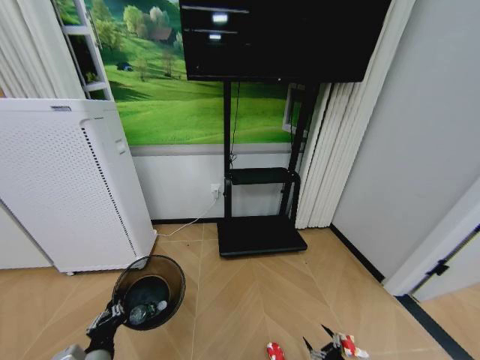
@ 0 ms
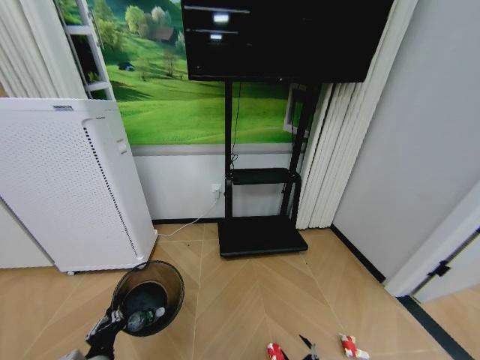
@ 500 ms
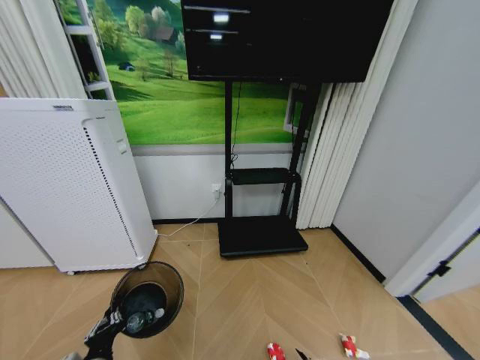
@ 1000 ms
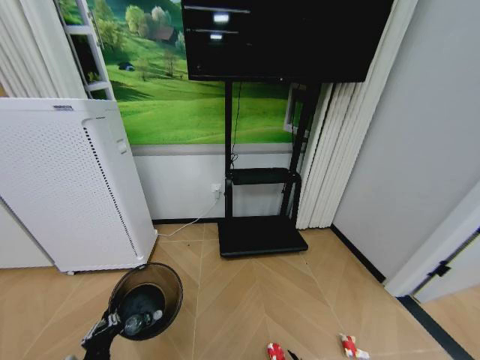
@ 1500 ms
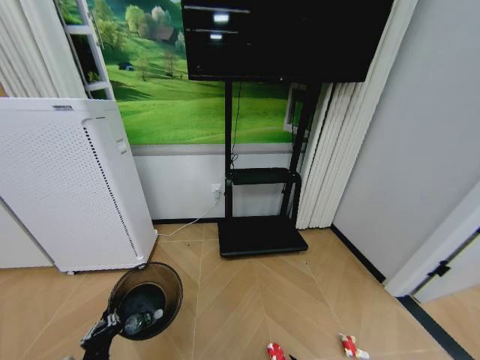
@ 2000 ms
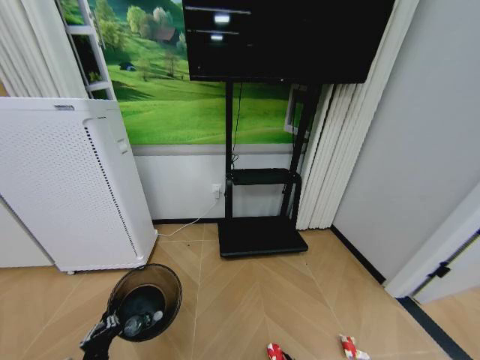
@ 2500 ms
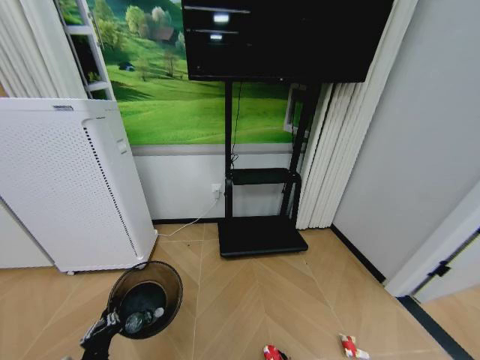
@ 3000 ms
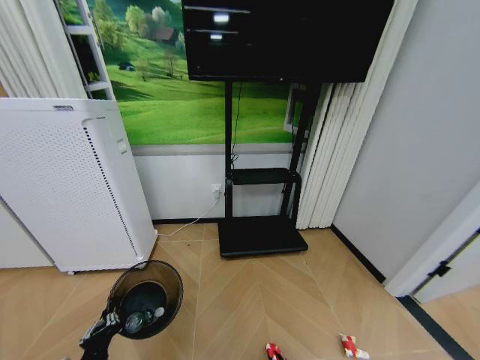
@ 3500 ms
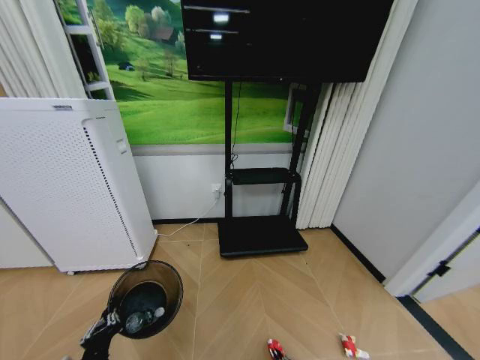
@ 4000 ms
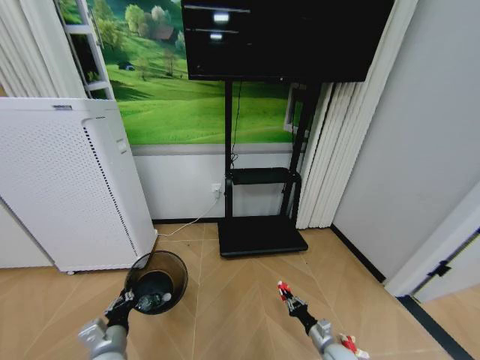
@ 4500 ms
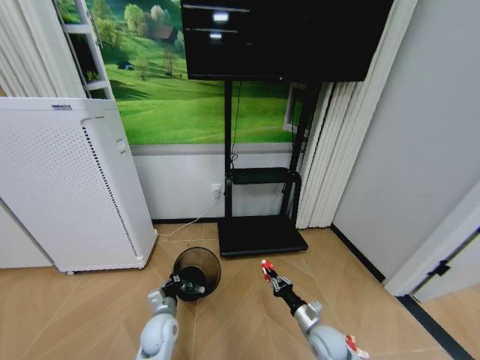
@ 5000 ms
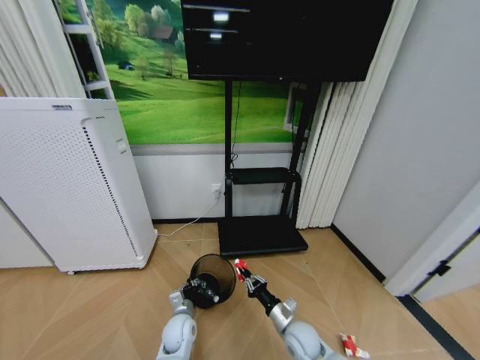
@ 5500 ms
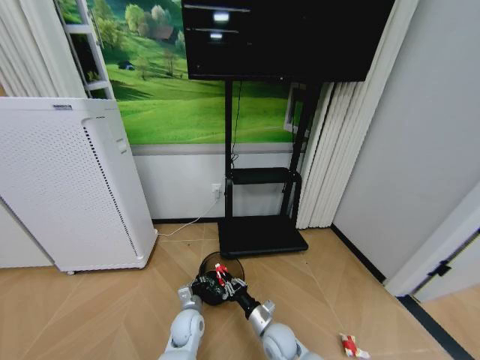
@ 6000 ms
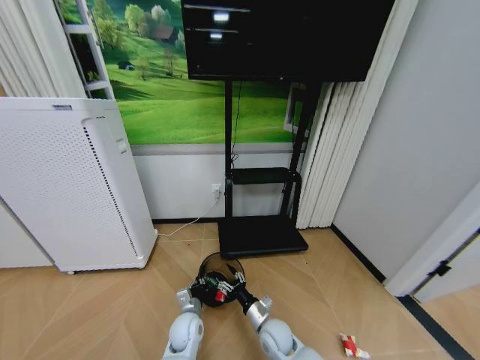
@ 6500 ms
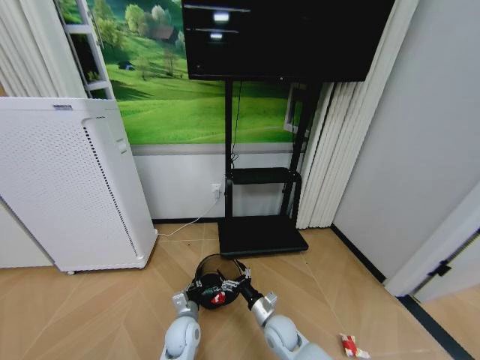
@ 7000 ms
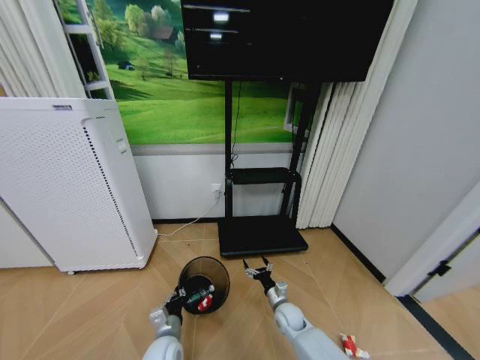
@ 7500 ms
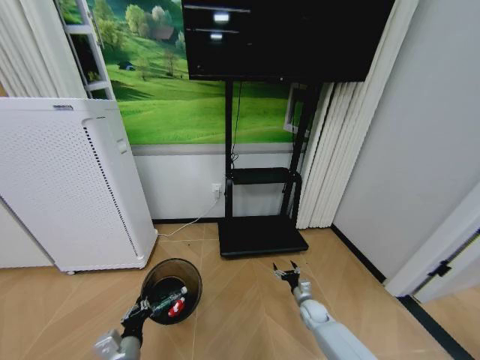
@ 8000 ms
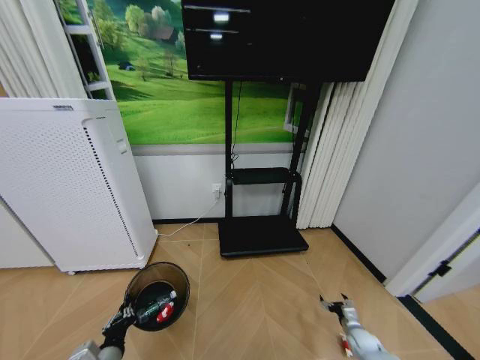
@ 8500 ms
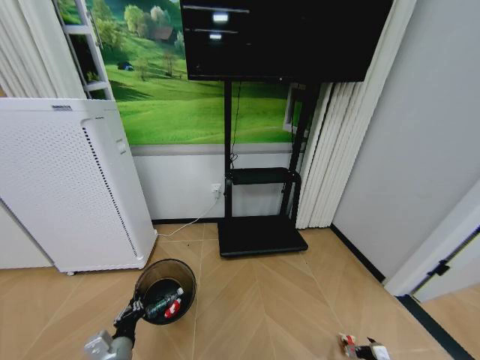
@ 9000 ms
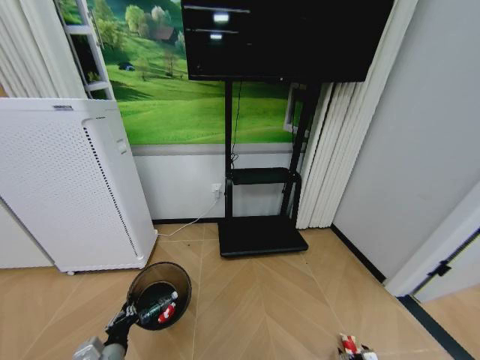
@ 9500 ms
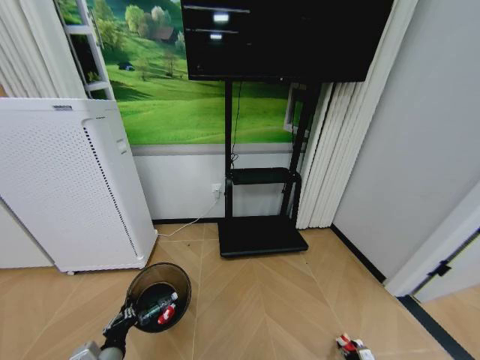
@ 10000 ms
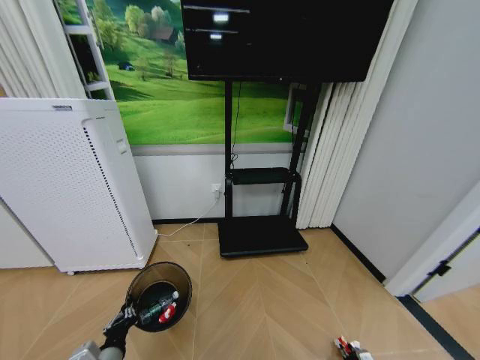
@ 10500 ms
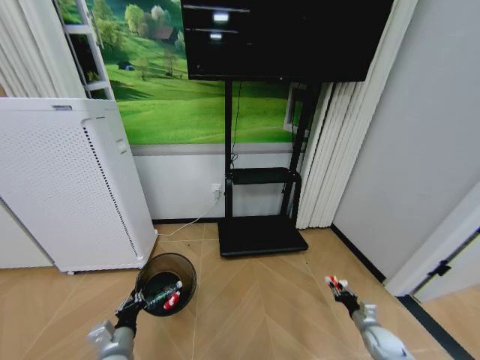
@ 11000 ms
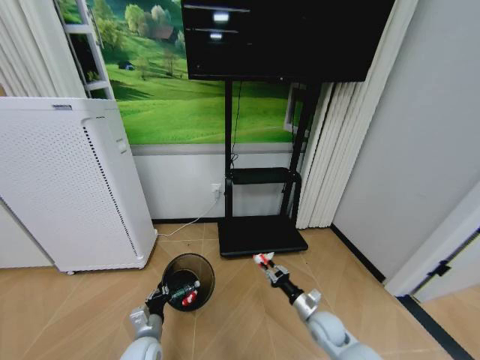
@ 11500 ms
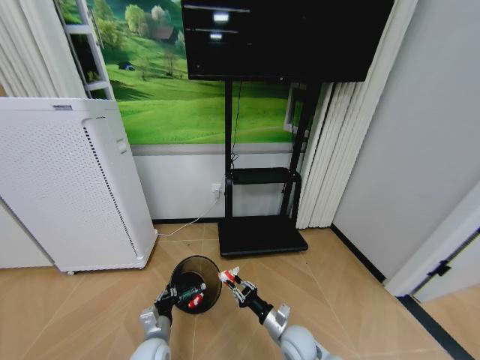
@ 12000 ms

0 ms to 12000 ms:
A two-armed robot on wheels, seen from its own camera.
Task of the whole recording: Pick up the trash bin and place the garbage on the floor into it.
0 ms to 2000 ms: The right gripper is displaced to the left and downward by roughly 15 cm.
4000 ms to 6000 ms: The left gripper travels forward, downward and to the right by about 30 cm. The right gripper travels upward, forward and to the left by approximately 30 cm.
6000 ms to 8000 ms: The right gripper travels to the right, forward and downward by approximately 20 cm, and opens, while the left gripper moves backward, to the left and upward, some 20 cm.
8000 ms to 10000 ms: The right gripper travels backward, to the right and downward by about 30 cm.
10000 ms to 12000 ms: The right gripper travels to the left and upward by some 35 cm, and closes its fingers, while the left gripper travels forward, to the right and downward by about 15 cm.

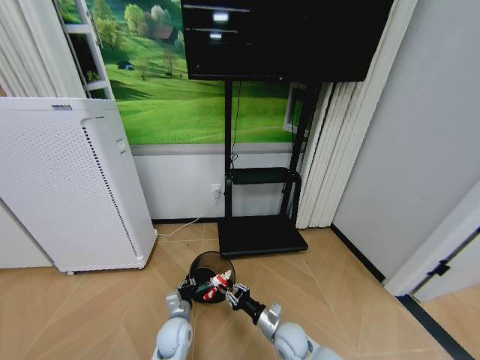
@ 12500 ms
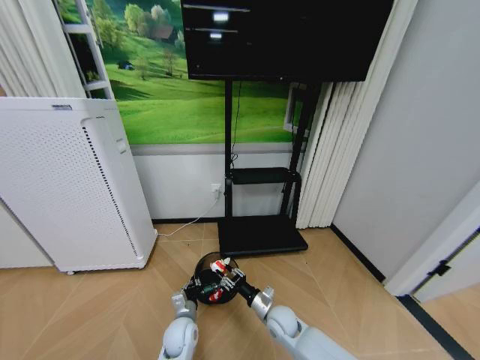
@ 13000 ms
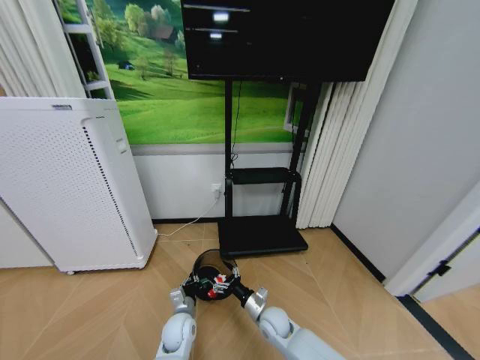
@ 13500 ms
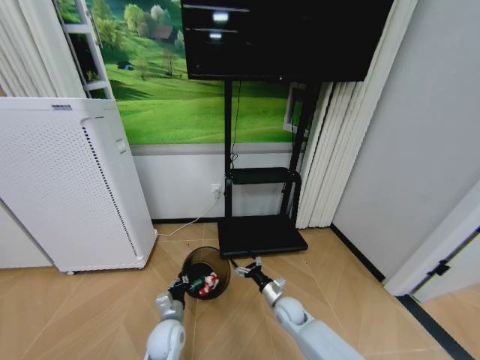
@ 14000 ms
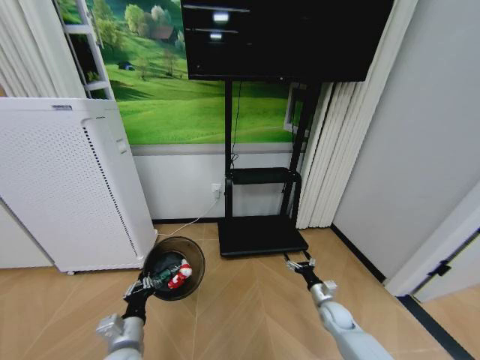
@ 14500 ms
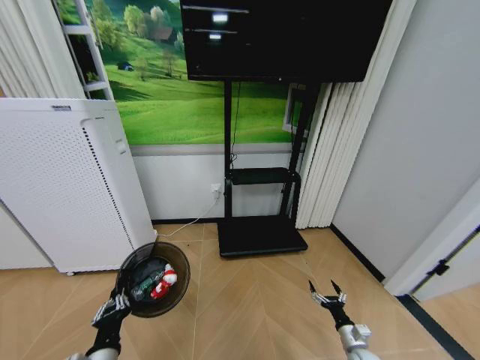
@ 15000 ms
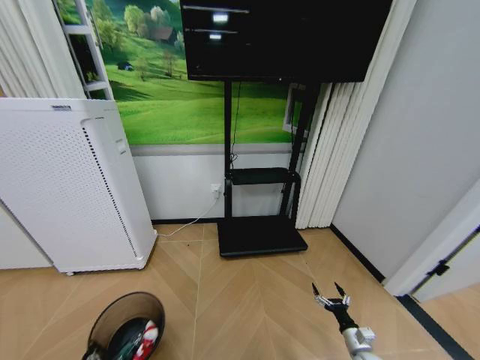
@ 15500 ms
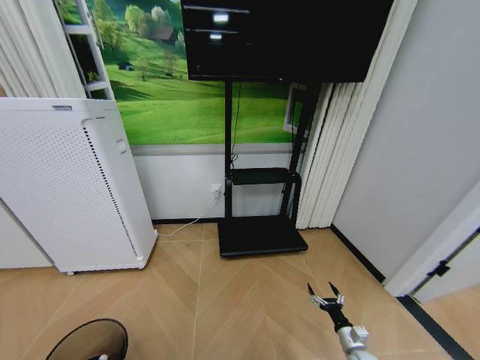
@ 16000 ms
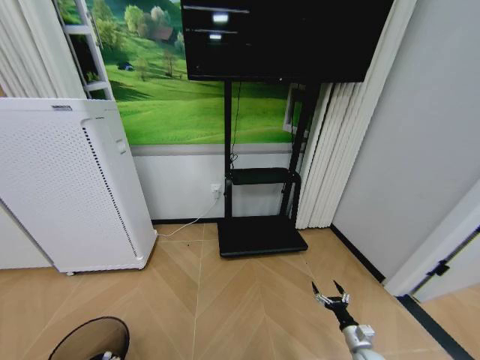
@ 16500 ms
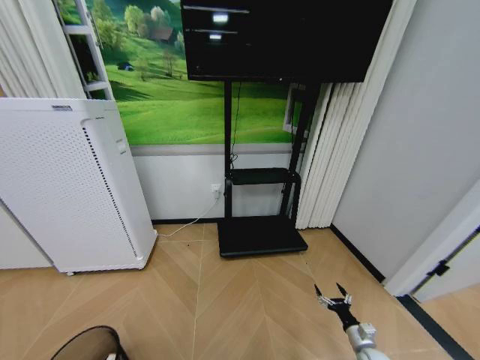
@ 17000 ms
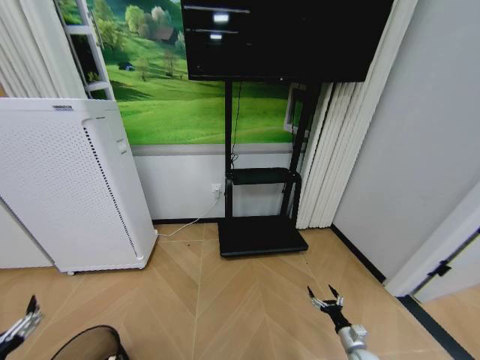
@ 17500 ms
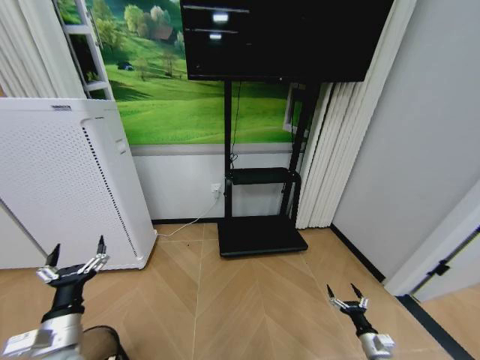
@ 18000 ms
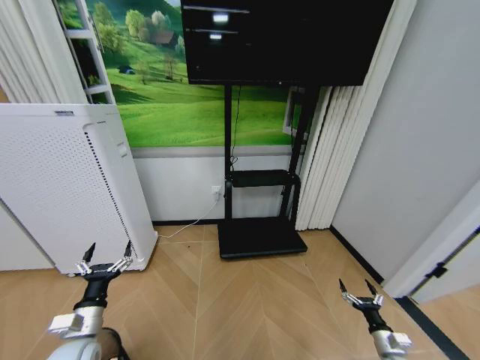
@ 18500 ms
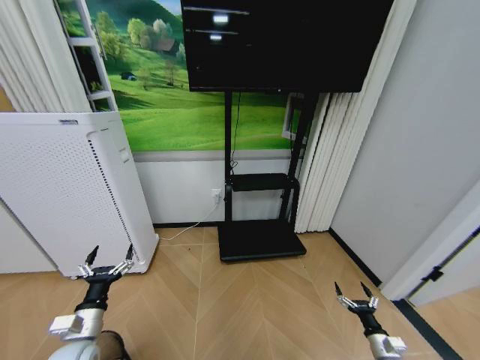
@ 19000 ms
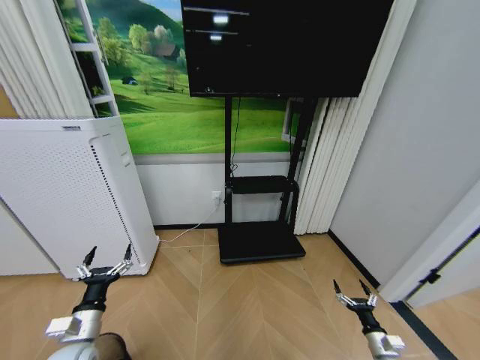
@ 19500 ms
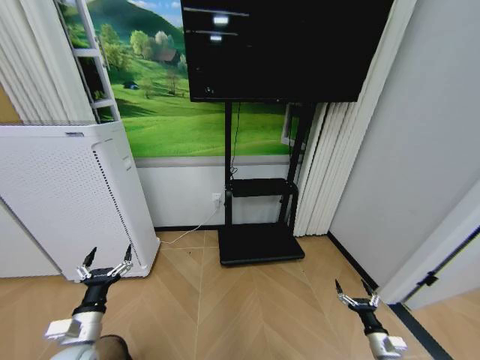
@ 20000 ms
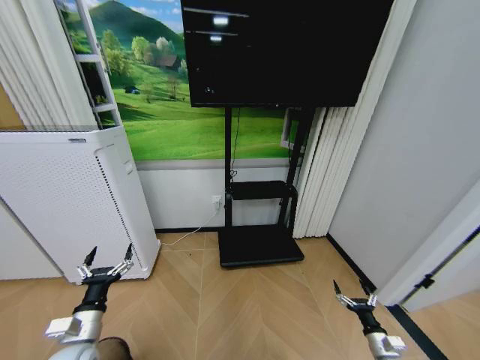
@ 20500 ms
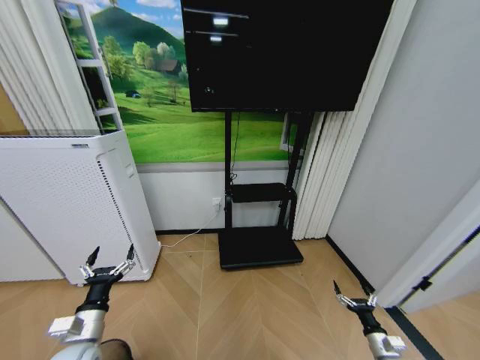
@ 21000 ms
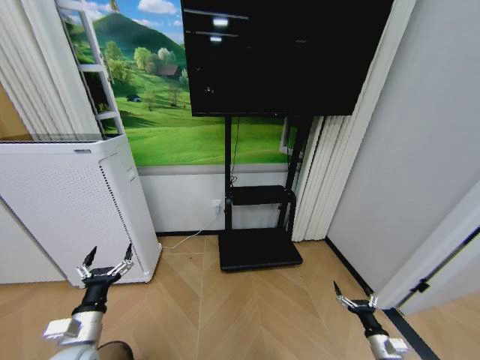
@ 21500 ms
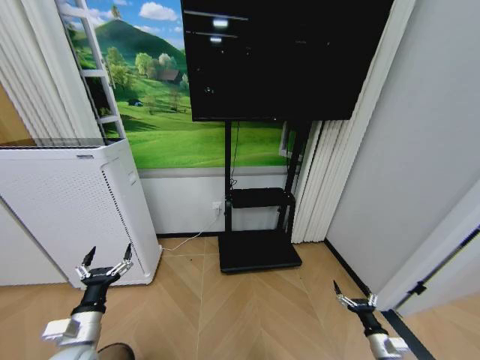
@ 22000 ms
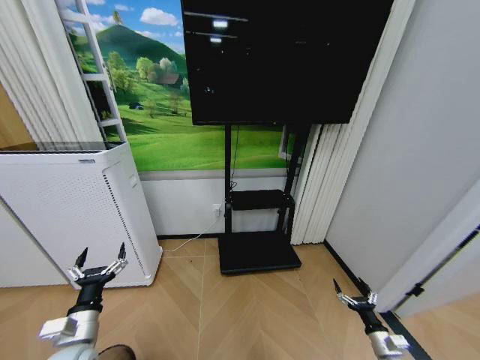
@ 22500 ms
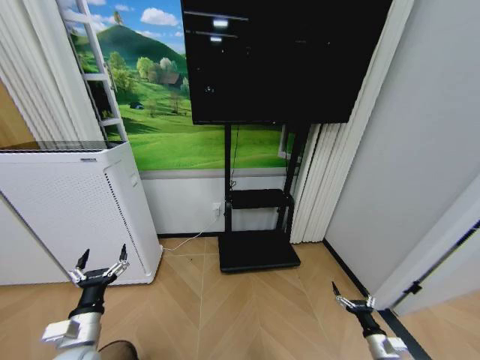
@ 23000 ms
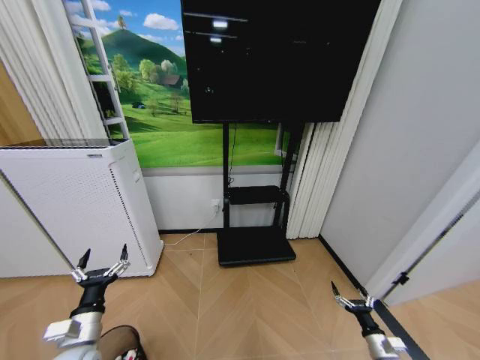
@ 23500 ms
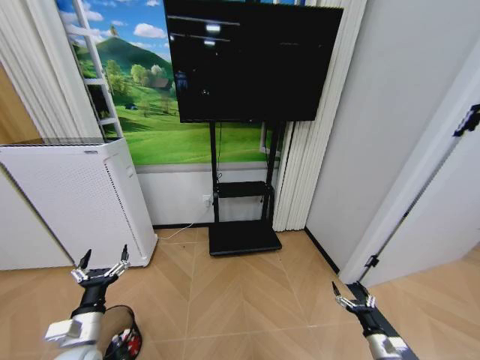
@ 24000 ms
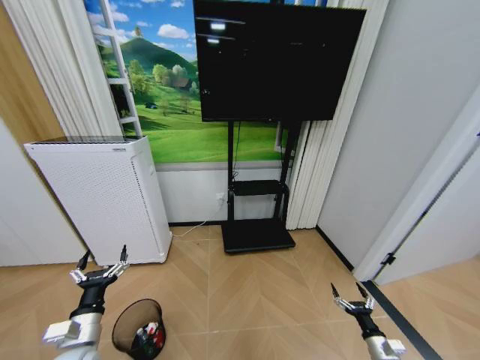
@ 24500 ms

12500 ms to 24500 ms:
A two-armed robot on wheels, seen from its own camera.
Task of the whole recording: Pick up the trash bin and place the garbage on the floor into it.
12500 ms to 14500 ms: The left gripper travels upward, backward and to the left by some 15 cm; the right gripper goes roughly 20 cm to the right, and opens its fingers.
14500 ms to 16500 ms: The right gripper is displaced backward, to the right and downward by some 15 cm. Meanwhile the left gripper travels to the left, backward and downward by approximately 20 cm.
16500 ms to 18500 ms: The left gripper goes roughly 20 cm forward and upward, and opens up; the right gripper moves to the right, some 5 cm.
20500 ms to 22500 ms: Both grippers stay about where they are.

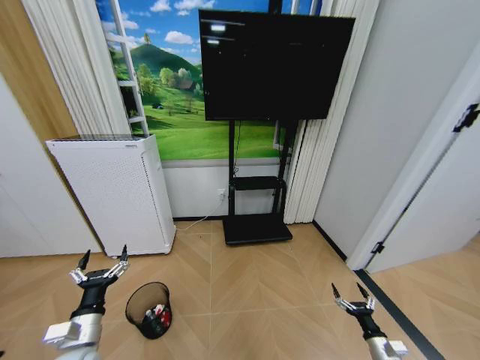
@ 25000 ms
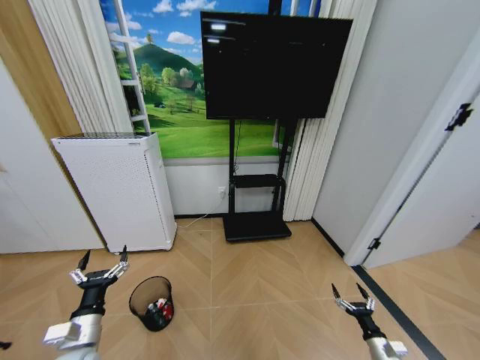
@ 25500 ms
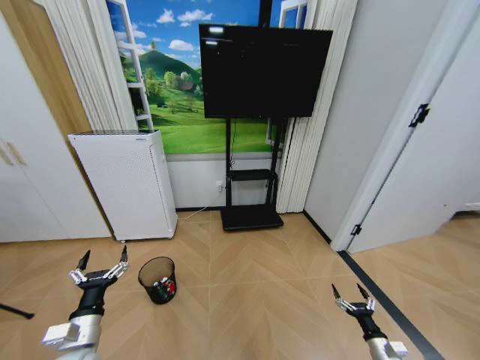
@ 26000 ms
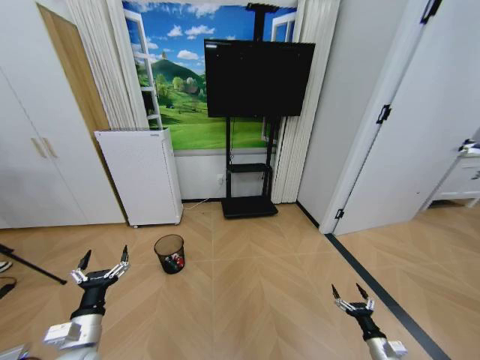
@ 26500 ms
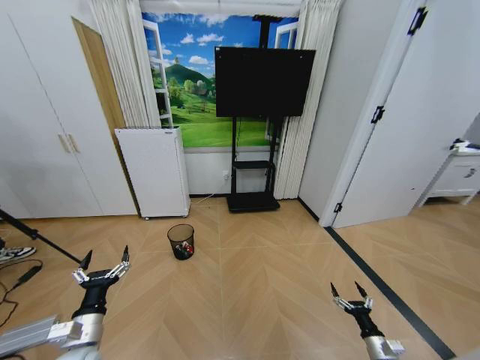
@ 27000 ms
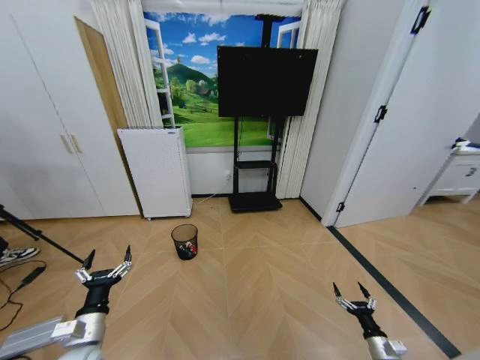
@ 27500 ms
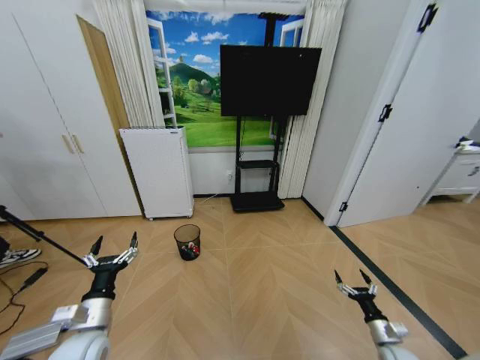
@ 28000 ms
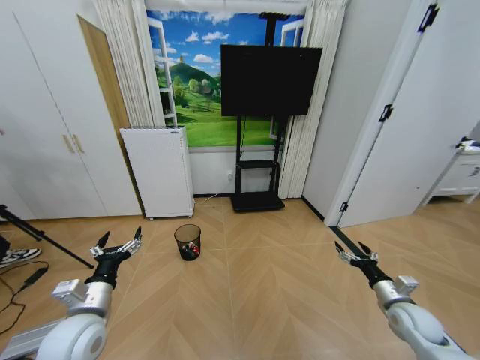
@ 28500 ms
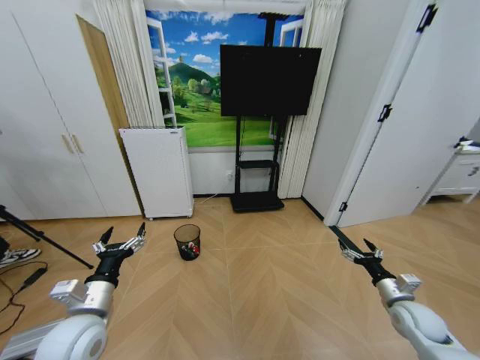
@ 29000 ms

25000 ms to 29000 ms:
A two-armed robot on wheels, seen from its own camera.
Task of the whole recording: Pick up the trash bin and place the garbage on the floor into it.
27000 ms to 29000 ms: The left gripper shifts roughly 10 cm upward; the right gripper travels upward and forward by roughly 20 cm.
